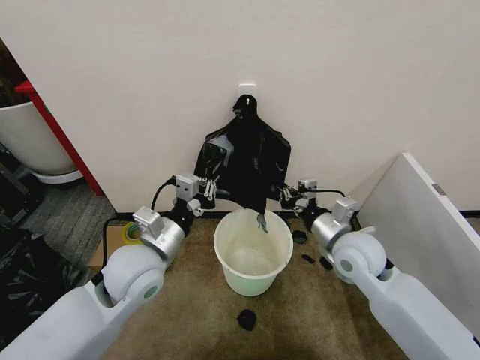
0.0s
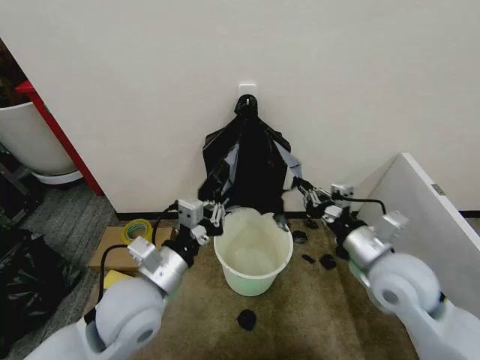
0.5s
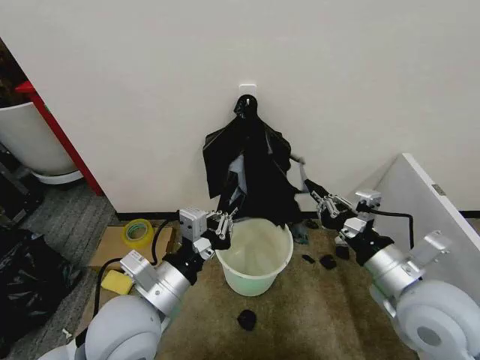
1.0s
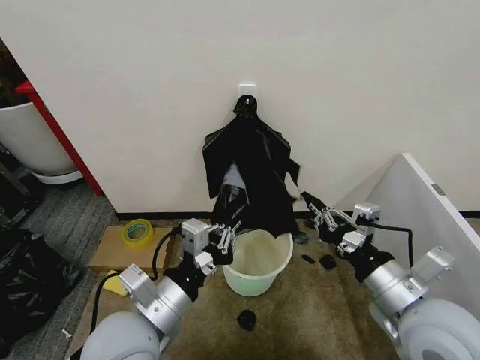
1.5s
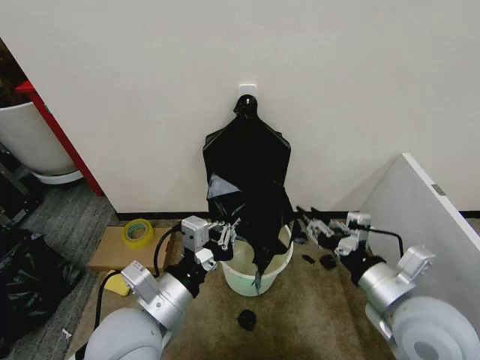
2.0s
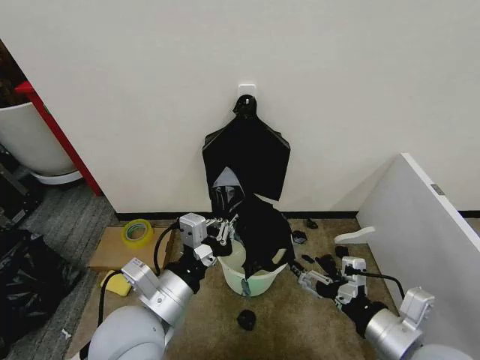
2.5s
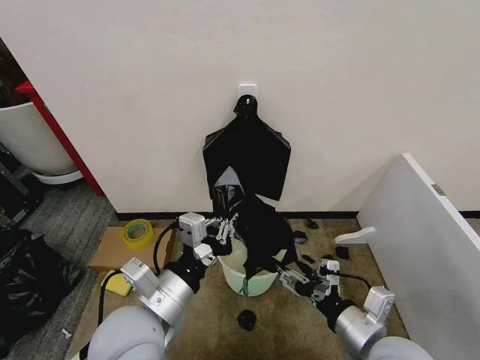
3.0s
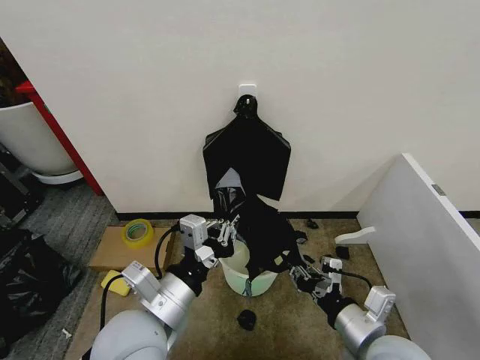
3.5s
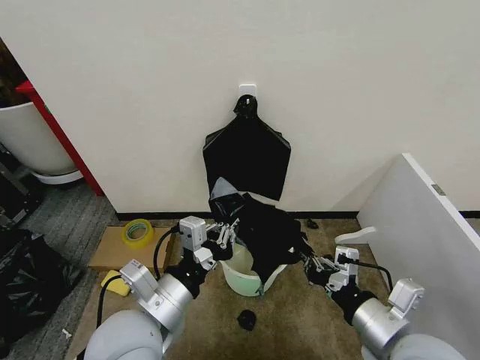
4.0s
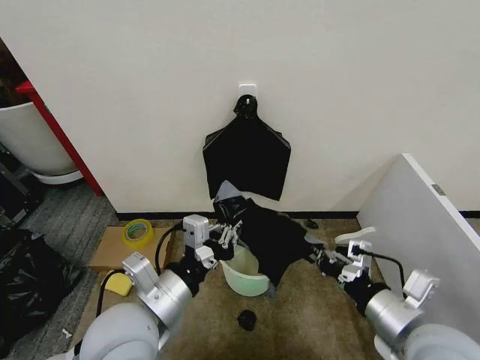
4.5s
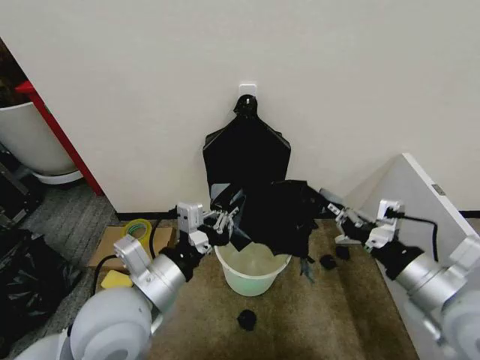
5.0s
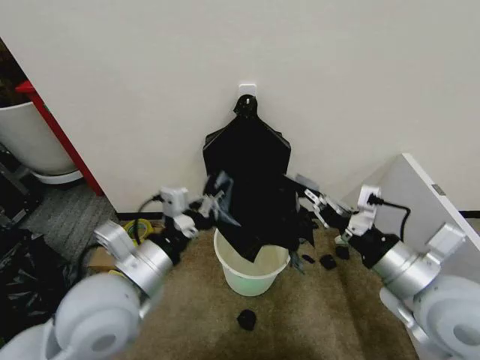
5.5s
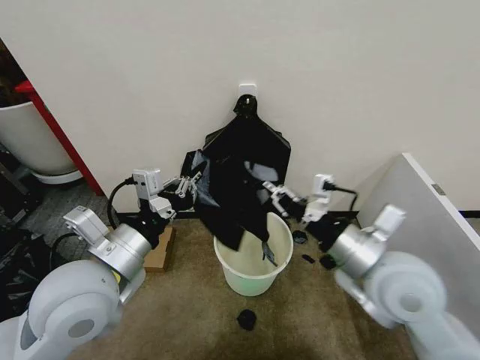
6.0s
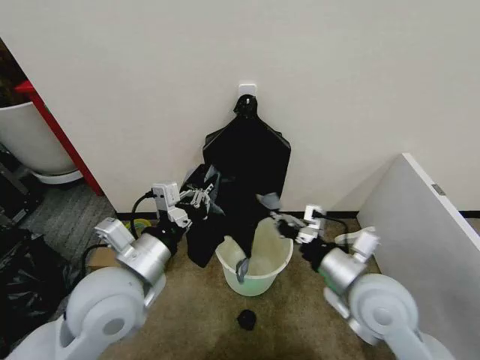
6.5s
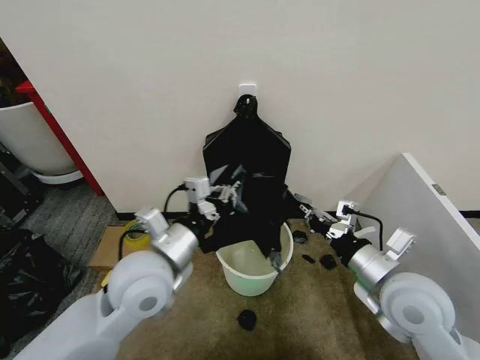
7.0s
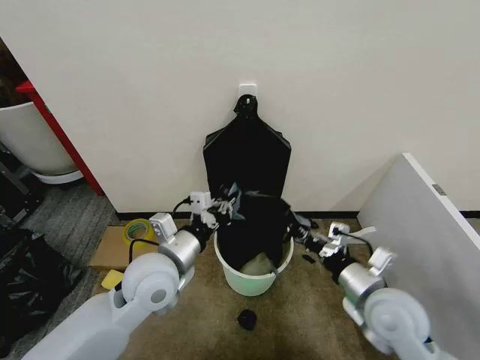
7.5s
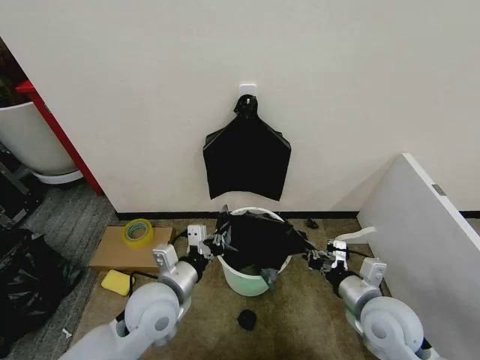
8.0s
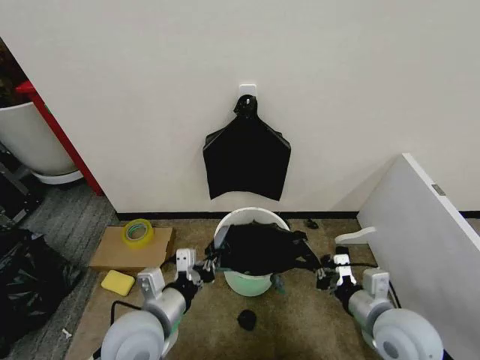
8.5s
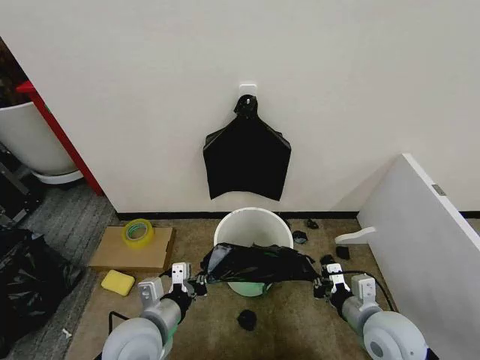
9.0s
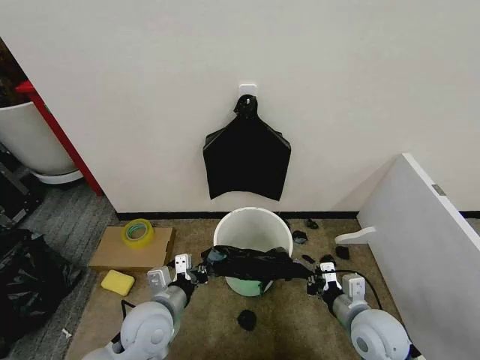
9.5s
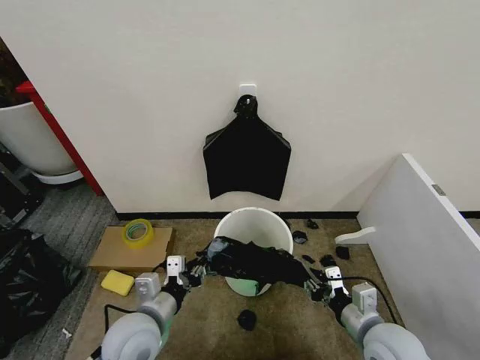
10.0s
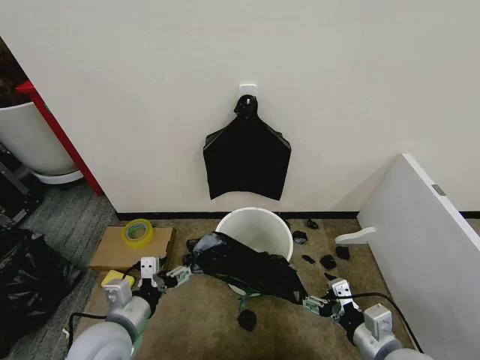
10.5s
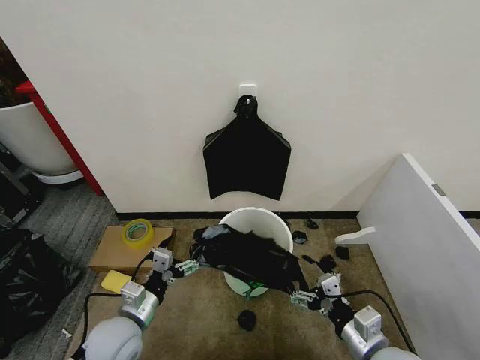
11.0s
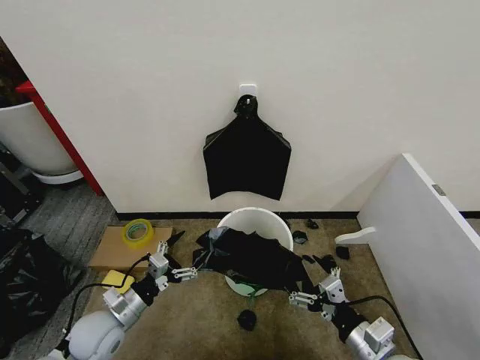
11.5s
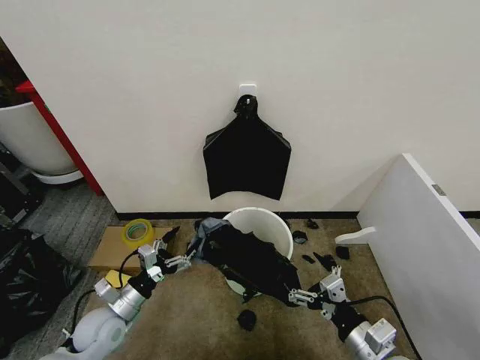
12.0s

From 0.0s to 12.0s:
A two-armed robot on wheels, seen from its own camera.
Task of the whole recording: Place the garbage bag over the trash bin.
From 0.0s to 2.0s: Both grippers move backward, approximately 15 cm. The right gripper opens.
From 2.0s to 4.0s: The right gripper closes.
From 4.0s to 6.0s: The left gripper is displaced upward and to the left by about 10 cm, while the right gripper goes approximately 10 cm forward and upward.
From 6.0s to 8.0s: The two grippers go approximately 15 cm downward.
From 8.0s to 10.0s: The left gripper shifts by roughly 5 cm, and opens up.
From 10.0s to 12.0s: The right gripper travels backward by approximately 5 cm, and opens its fingers, while the left gripper heads to the left and downward, covering roughly 15 cm, and opens.

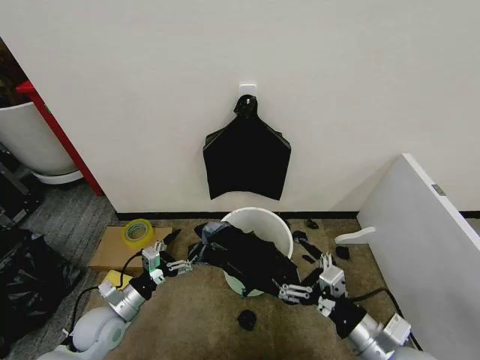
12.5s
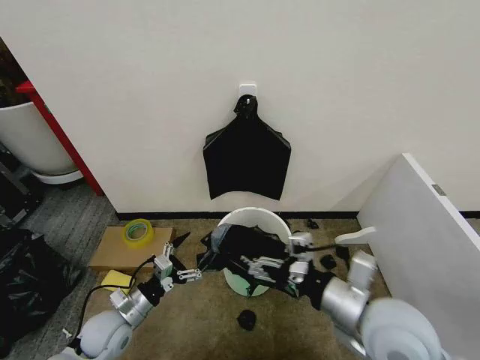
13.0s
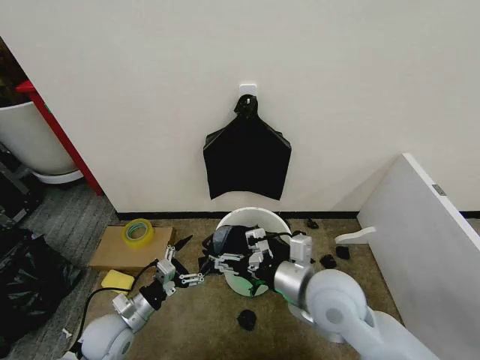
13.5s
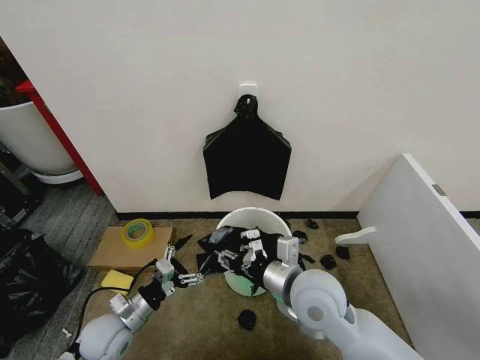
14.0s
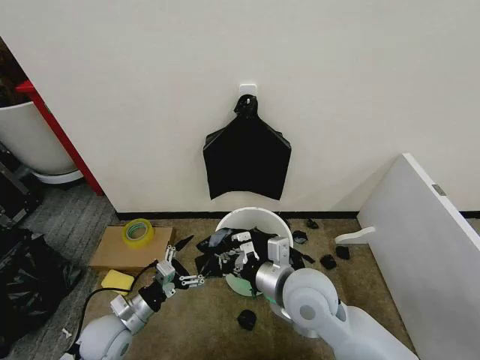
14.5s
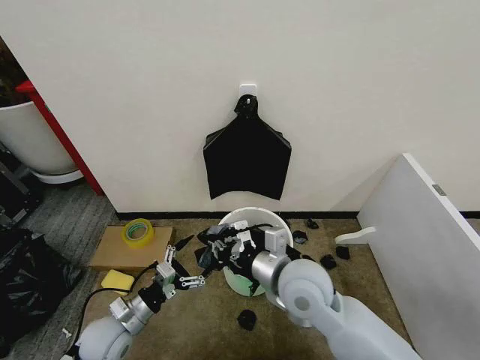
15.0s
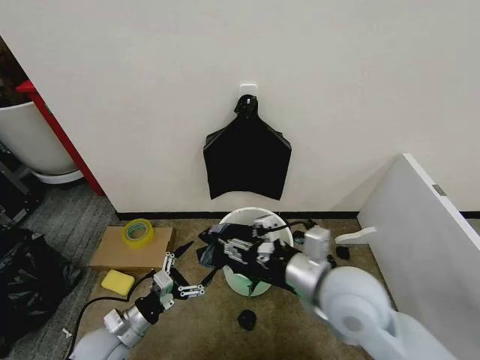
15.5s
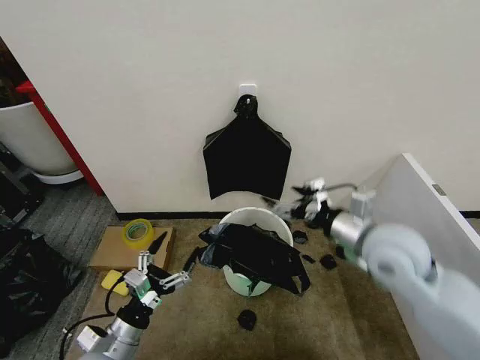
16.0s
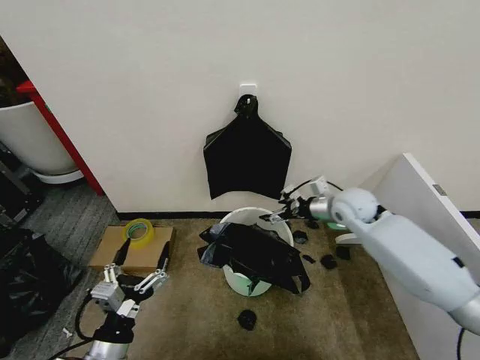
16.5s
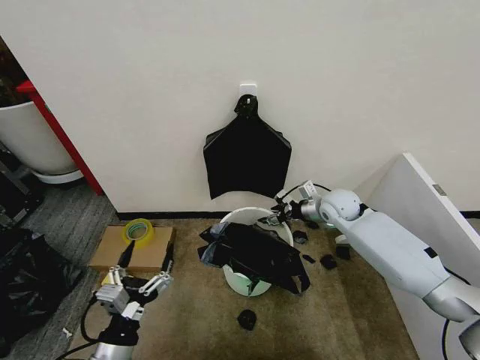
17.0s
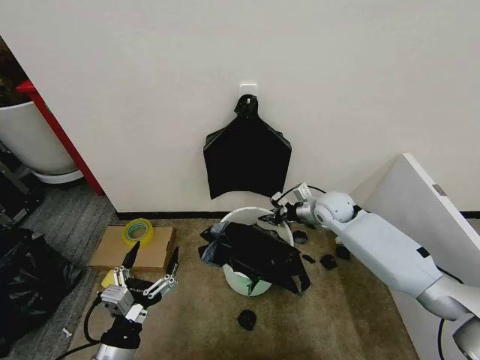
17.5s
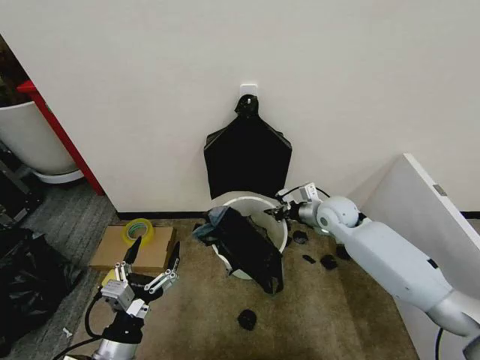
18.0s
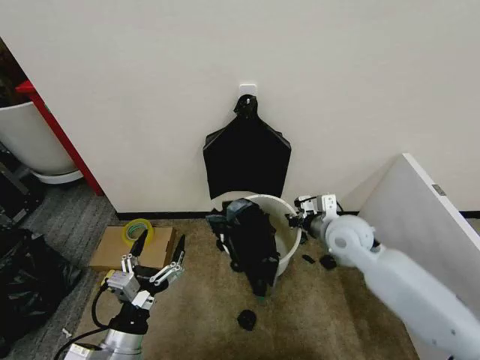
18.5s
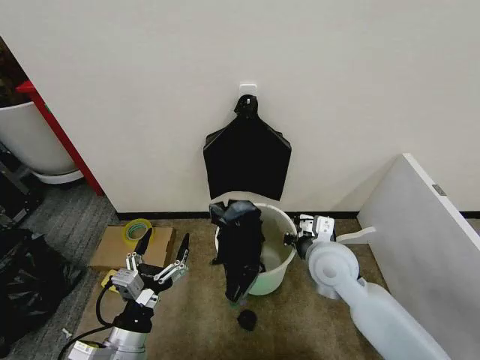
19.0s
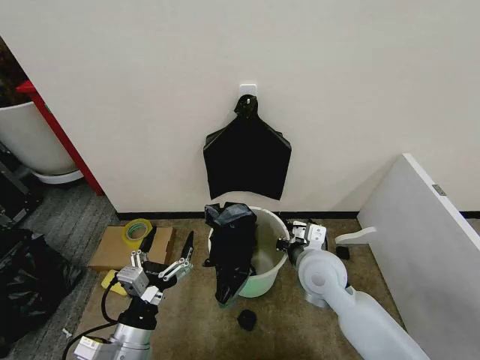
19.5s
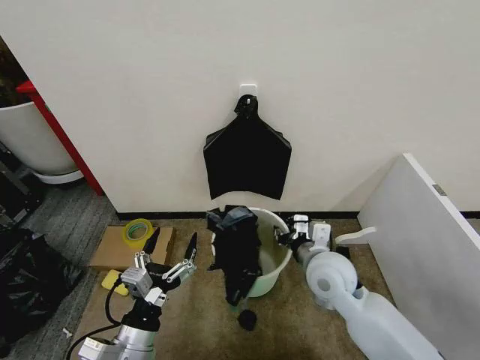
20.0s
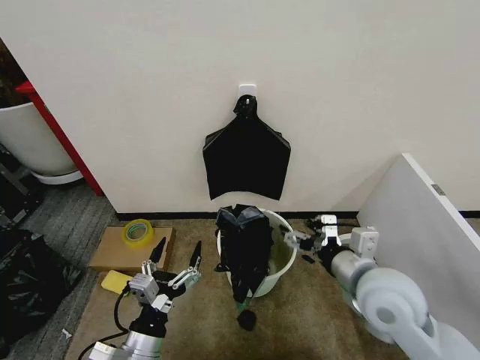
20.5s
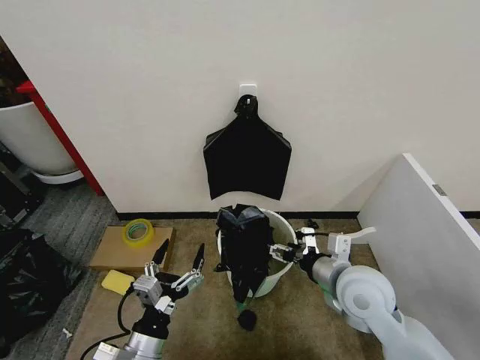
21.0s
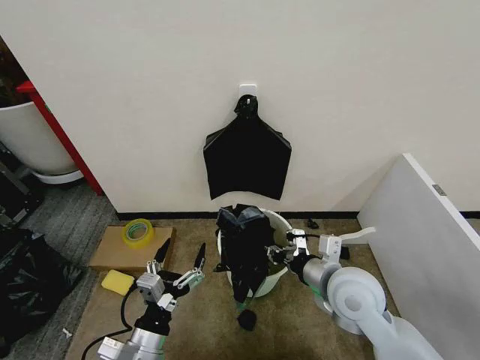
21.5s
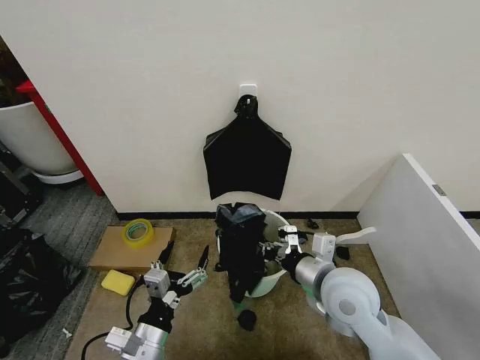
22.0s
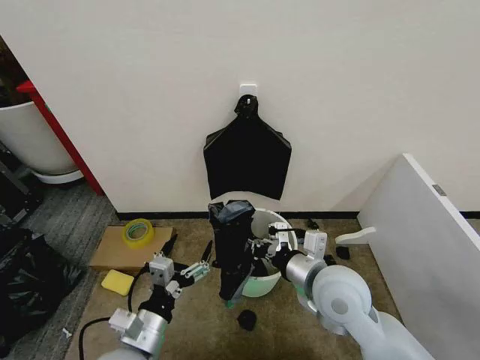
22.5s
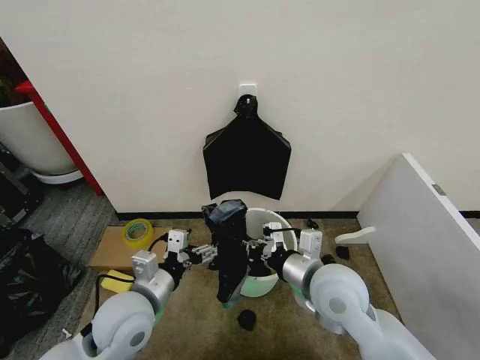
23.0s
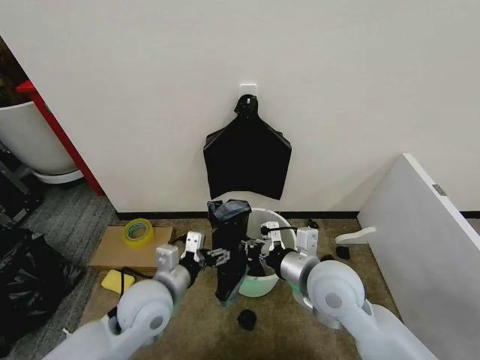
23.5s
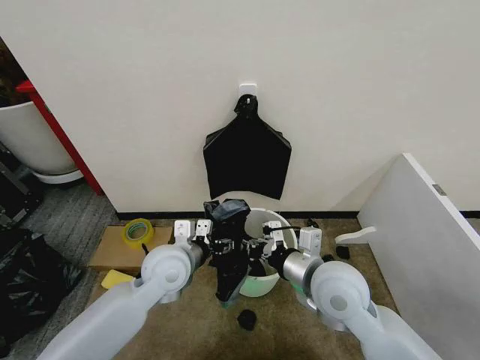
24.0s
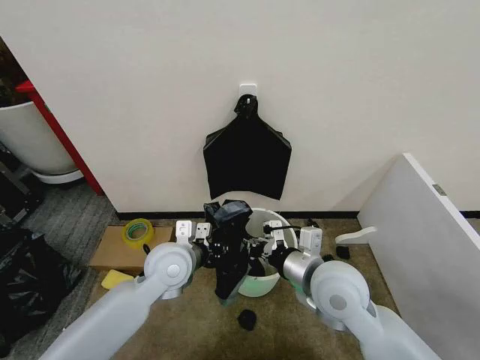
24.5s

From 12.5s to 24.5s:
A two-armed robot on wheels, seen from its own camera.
Task of the whole recording: Place the garbage bag over the trash bin.
From 12.5s to 14.5s: The right gripper is displaced to the left and forward by roughly 20 cm, and closes its fingers.
From 14.5s to 16.5s: The right gripper moves forward and to the right, approximately 25 cm, and opens up, while the left gripper goes roughly 15 cm backward and upward.
From 16.5s to 18.5s: The right gripper travels backward by roughly 5 cm, and closes its fingers.
From 18.5s to 20.5s: The right gripper shifts some 15 cm backward, and opens its fingers.
From 20.5s to 22.5s: The right gripper heads to the left, covering about 5 cm, and closes its fingers.
From 22.5s to 24.5s: The left gripper shifts about 20 cm forward, and closes.

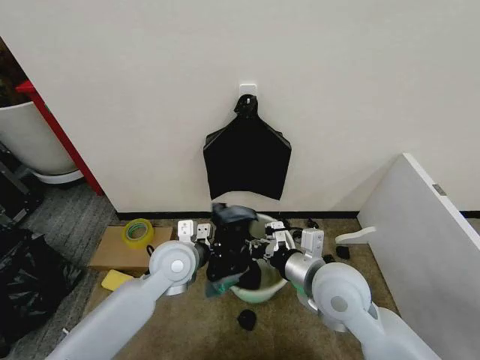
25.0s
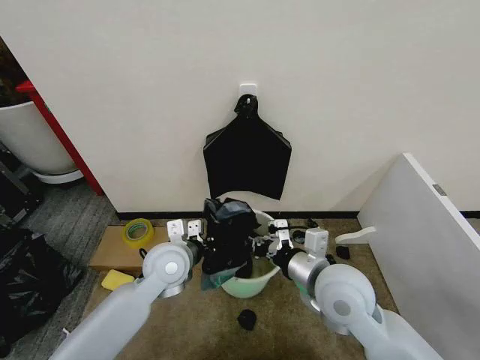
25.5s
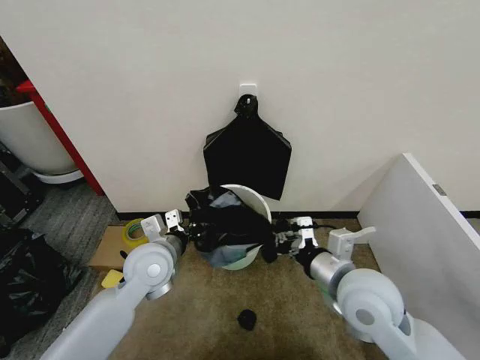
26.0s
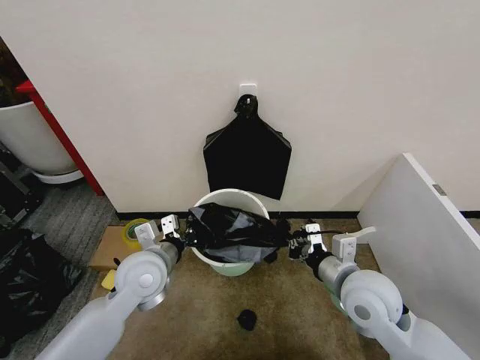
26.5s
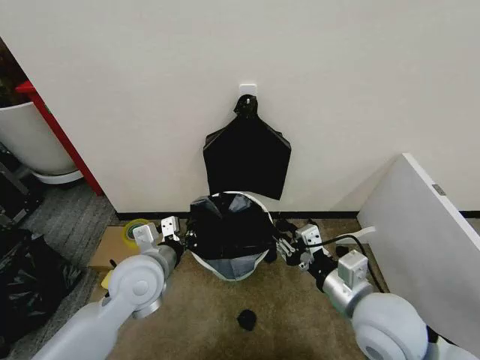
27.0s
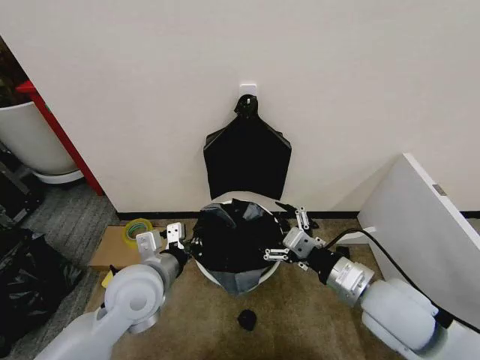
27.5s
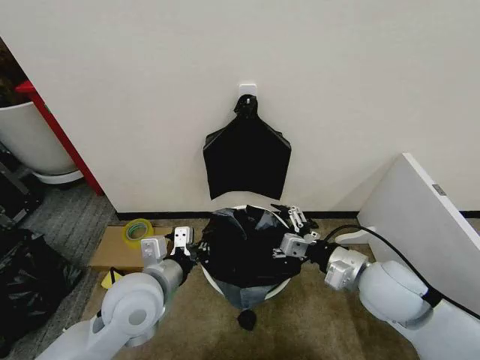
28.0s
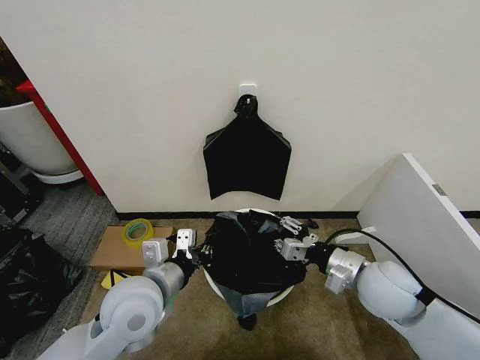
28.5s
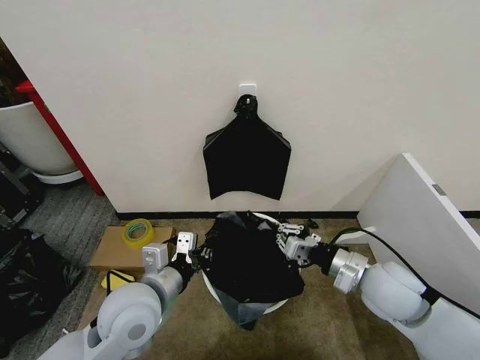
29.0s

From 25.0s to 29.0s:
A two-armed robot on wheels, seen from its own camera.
Task of the whole recording: Place the garbage bag over the trash bin.
From 25.0s to 27.0s: The right gripper heads backward and to the right, covering roughly 10 cm, and opens; the left gripper travels backward by approximately 5 cm.
From 27.0s to 29.0s: The left gripper shifts some 5 cm backward. The right gripper travels forward and to the right by about 10 cm, and closes its fingers.
